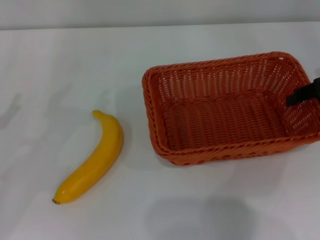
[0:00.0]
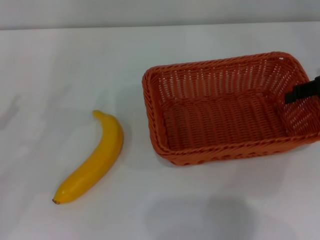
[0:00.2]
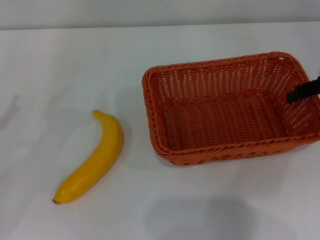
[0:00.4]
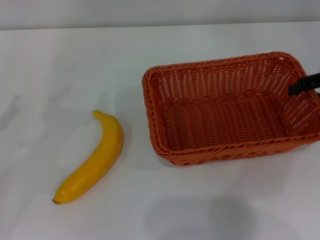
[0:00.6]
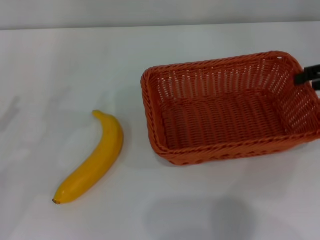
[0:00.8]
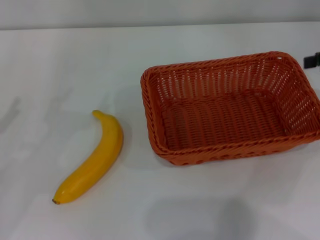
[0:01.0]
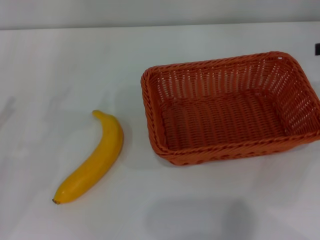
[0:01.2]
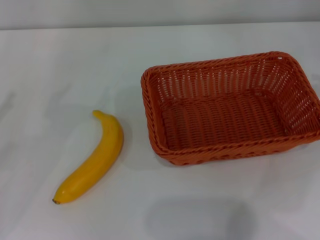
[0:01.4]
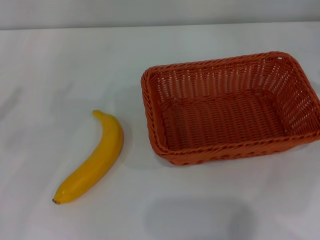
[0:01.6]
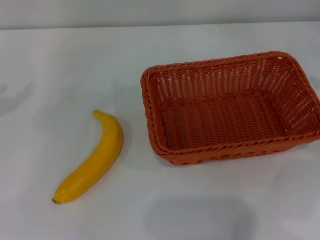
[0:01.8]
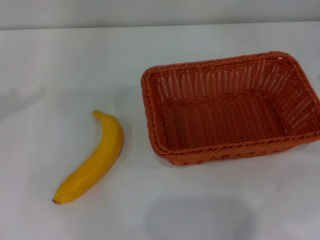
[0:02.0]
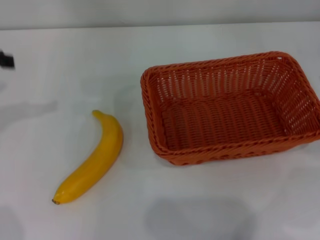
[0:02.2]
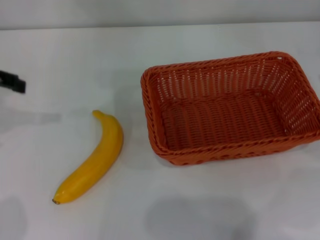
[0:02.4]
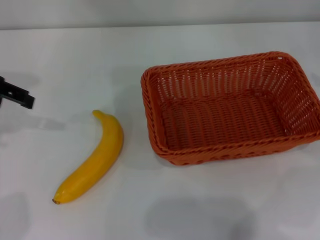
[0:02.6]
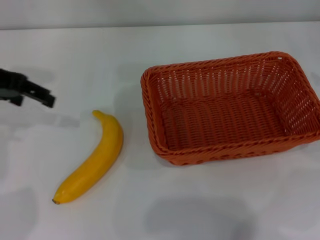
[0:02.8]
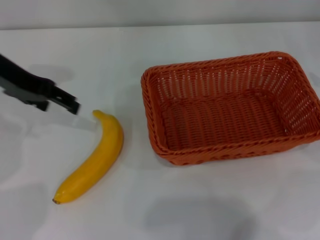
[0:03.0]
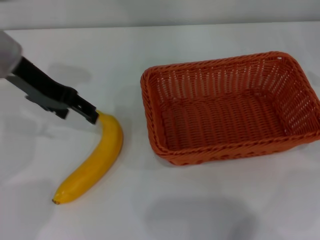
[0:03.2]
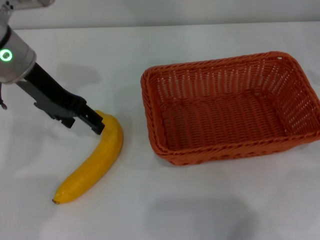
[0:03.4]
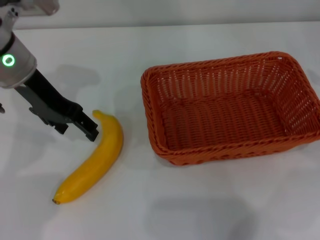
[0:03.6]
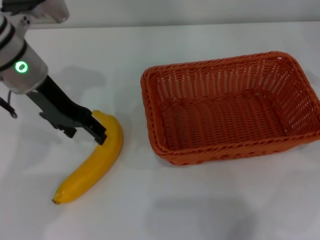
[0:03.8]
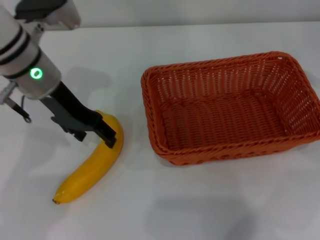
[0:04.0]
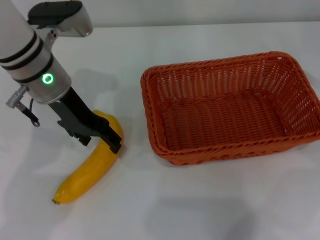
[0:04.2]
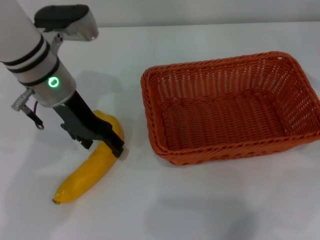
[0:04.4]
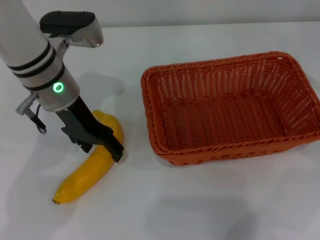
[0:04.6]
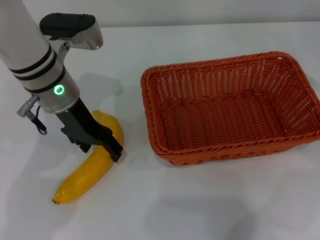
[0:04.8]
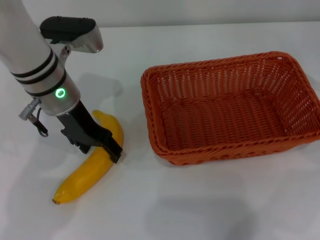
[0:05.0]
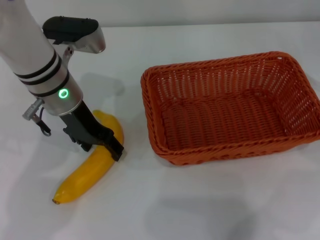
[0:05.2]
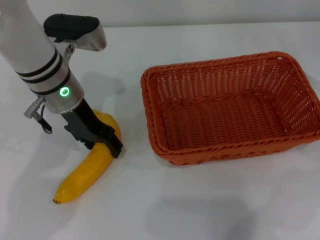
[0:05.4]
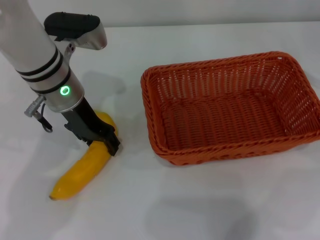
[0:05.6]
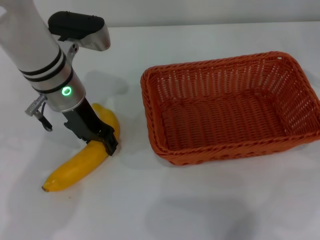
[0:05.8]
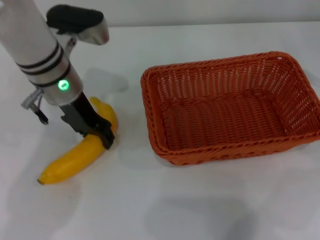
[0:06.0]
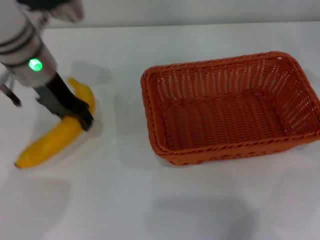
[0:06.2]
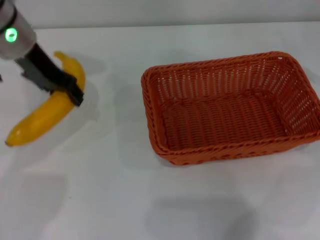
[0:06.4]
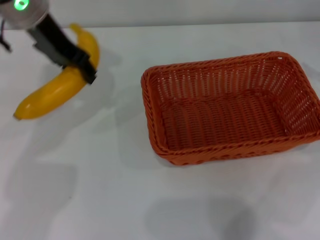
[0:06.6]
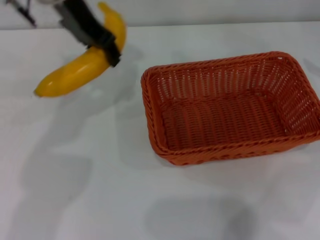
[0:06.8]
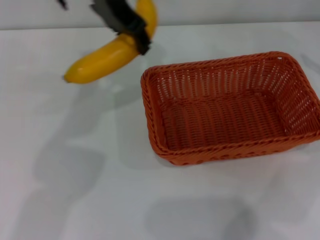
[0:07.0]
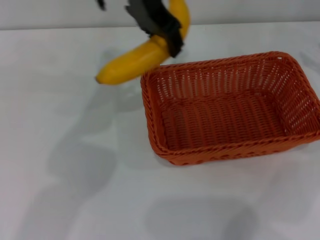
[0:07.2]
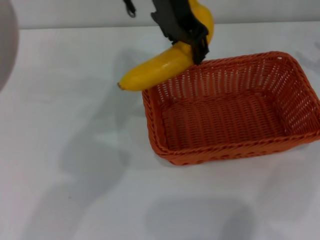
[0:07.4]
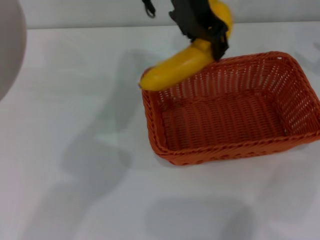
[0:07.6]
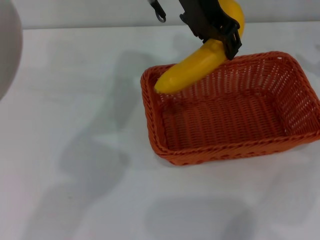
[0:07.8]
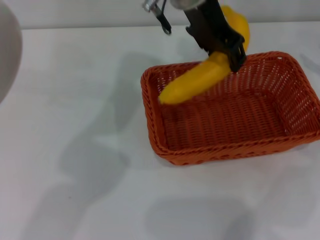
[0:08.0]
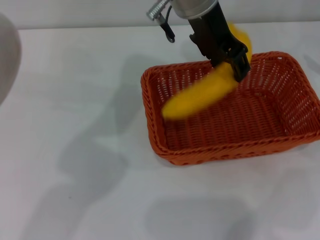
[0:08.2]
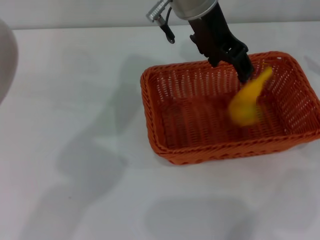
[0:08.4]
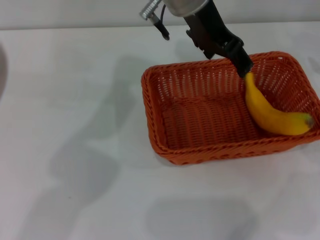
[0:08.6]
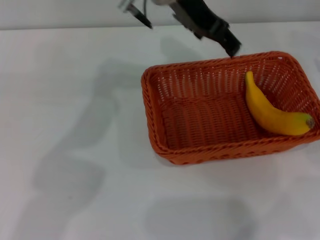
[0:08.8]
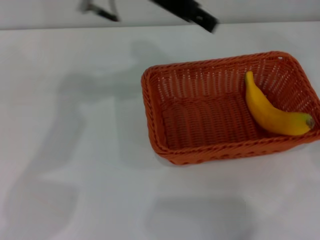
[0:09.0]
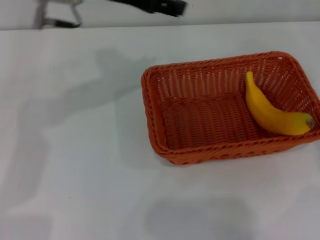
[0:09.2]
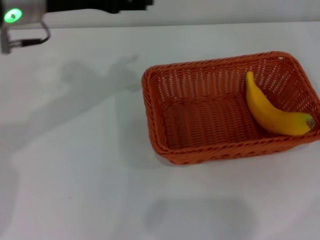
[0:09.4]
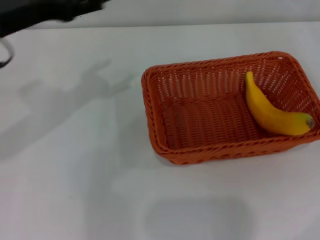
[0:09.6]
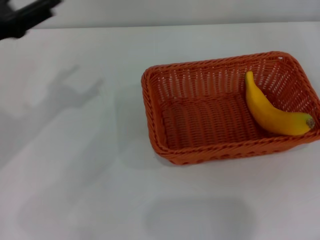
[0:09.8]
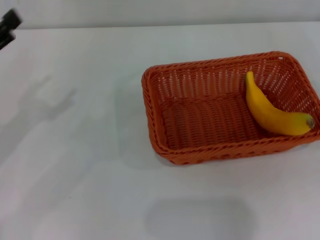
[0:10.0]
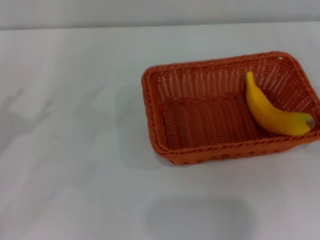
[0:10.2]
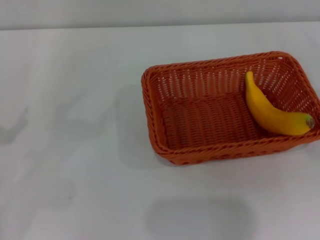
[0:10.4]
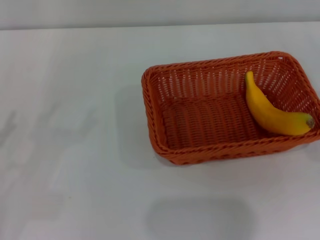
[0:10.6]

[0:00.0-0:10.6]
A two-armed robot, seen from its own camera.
Step, 0:02.0 to 0:06.4: Pick up the banana with the left gripper.
Step, 0:06.6 to 0:08.4: Place the banana into the light basket with the left gripper.
0:00.0 to 0:01.6: The right gripper heads to the right and upward, covering about 10 cm.
0:01.6 to 0:03.0: The left gripper moves to the right and forward, approximately 20 cm.
0:03.0 to 0:04.6: The left gripper is displaced to the right and downward by roughly 10 cm.
0:04.6 to 0:06.0: The left gripper closes up.
0:06.0 to 0:07.6: The left gripper is displaced to the right and upward by roughly 20 cm.
0:07.6 to 0:09.0: The left gripper travels to the left by about 5 cm, and opens its fingers.
0:09.0 to 0:10.6: The right gripper is displaced downward and backward by approximately 10 cm; the left gripper goes approximately 40 cm to the left, backward and downward.
